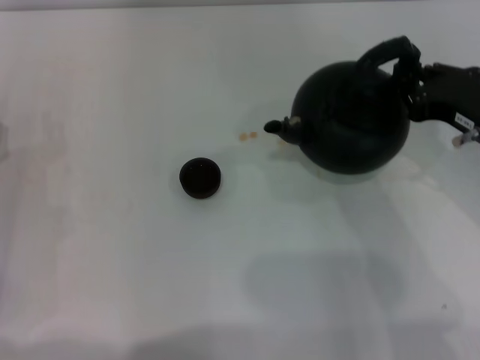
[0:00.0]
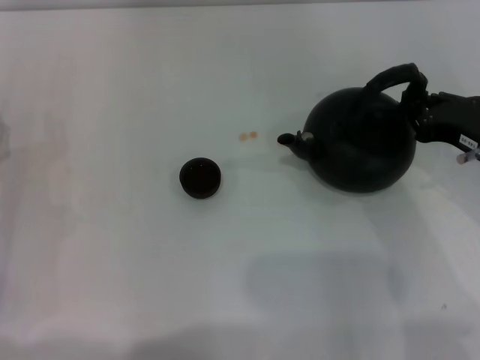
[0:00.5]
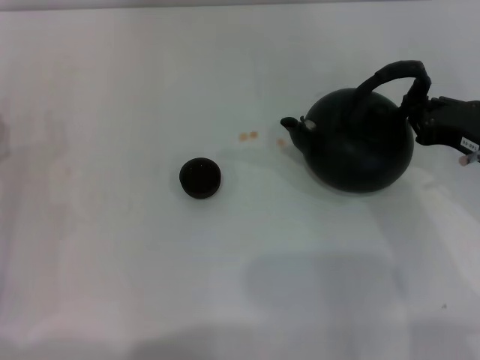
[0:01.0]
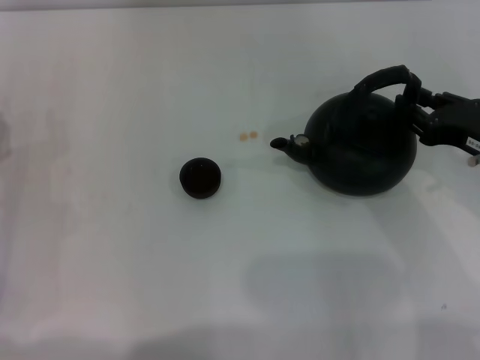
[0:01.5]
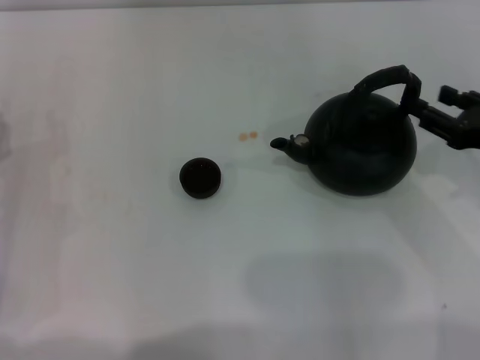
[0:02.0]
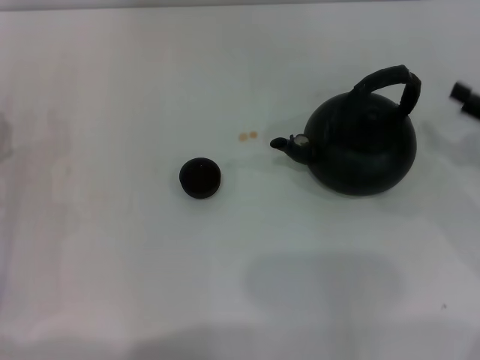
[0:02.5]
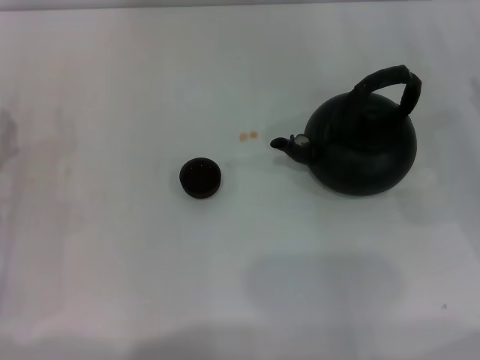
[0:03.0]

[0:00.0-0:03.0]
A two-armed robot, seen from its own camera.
Task of the whole recording: Grasp the handle of the teapot with one hand and pour tea into the teacup.
Step, 0:00.0 to 0:01.5: Put down the teapot with the right gripper.
0:00.0 to 0:01.5: The grippers stay close to where they were, moving slightly.
0:01.5 to 0:03.0: The right gripper heads to the right, covering roughly 10 cm, and opens its fingers.

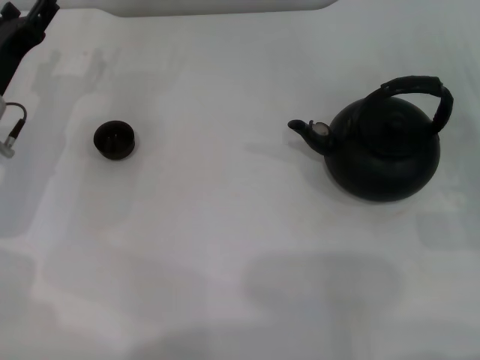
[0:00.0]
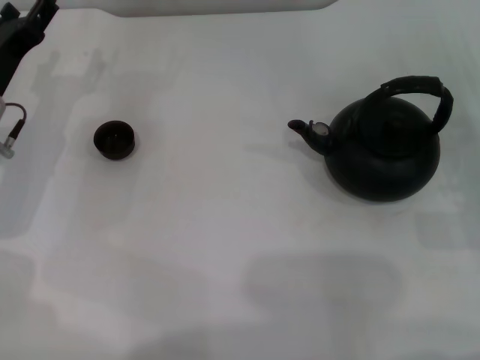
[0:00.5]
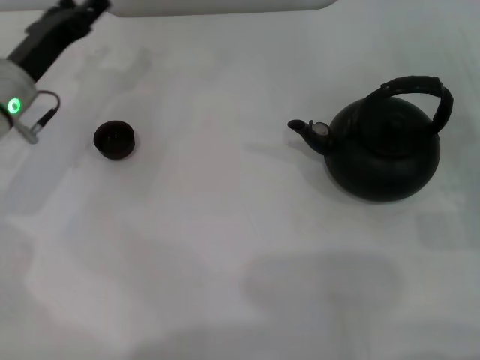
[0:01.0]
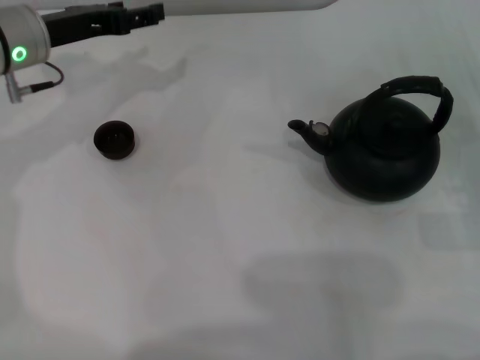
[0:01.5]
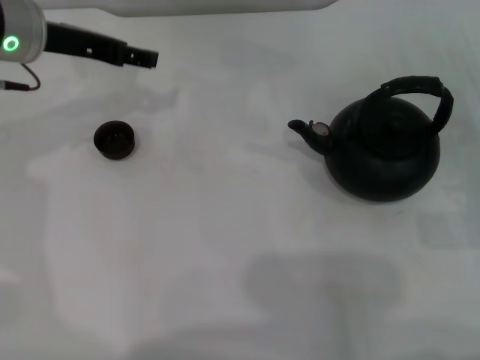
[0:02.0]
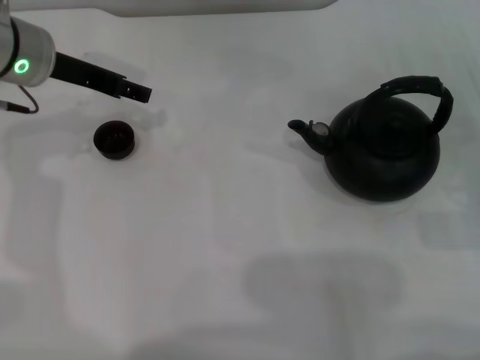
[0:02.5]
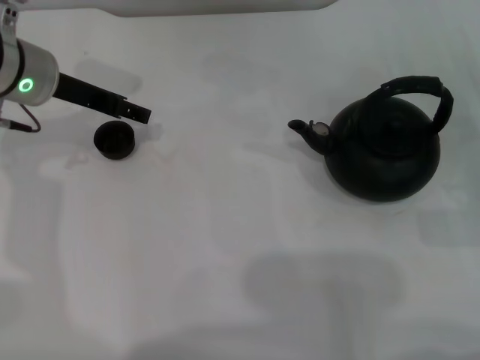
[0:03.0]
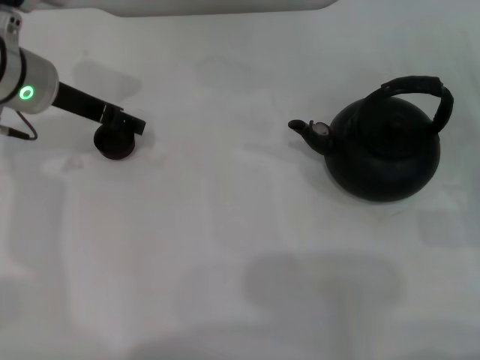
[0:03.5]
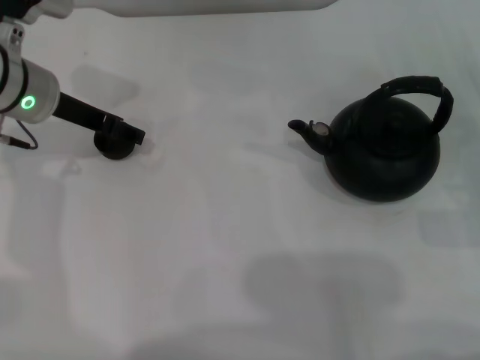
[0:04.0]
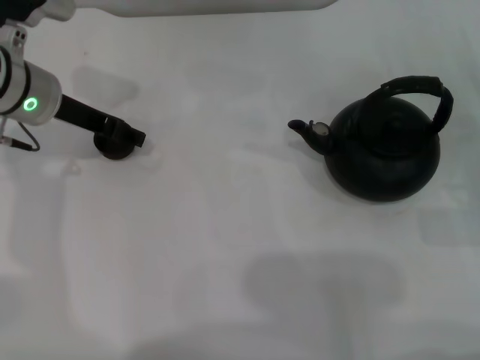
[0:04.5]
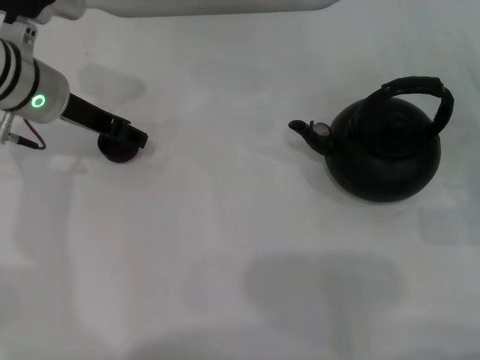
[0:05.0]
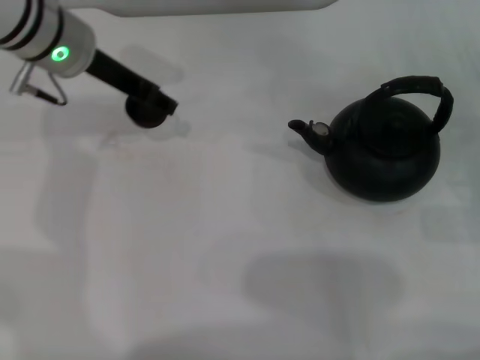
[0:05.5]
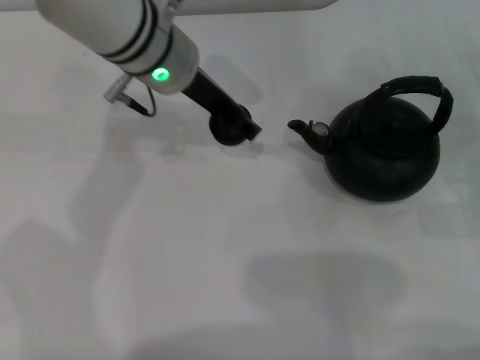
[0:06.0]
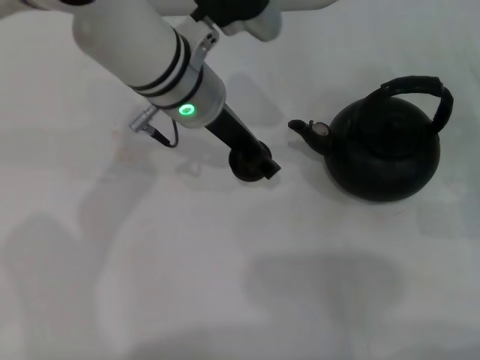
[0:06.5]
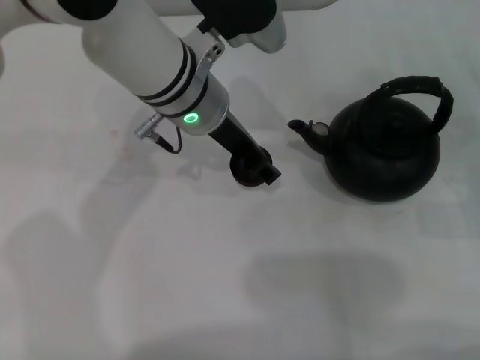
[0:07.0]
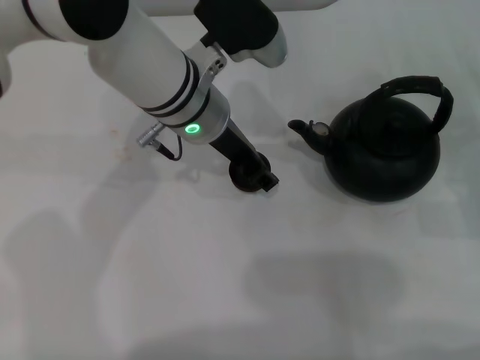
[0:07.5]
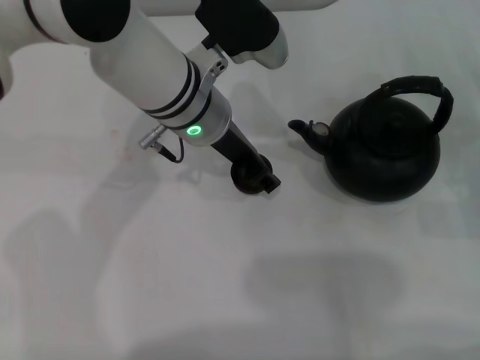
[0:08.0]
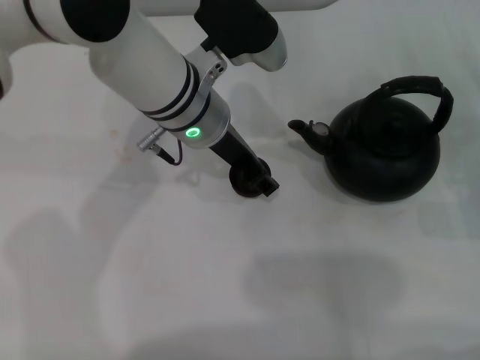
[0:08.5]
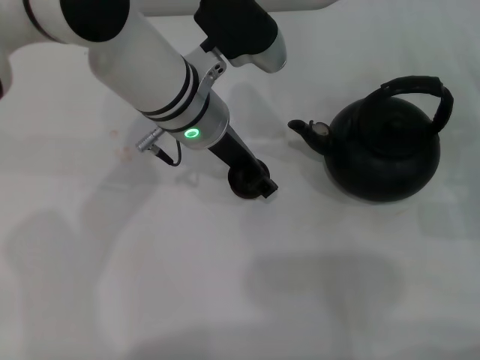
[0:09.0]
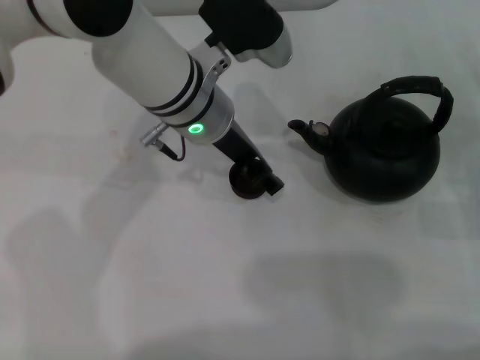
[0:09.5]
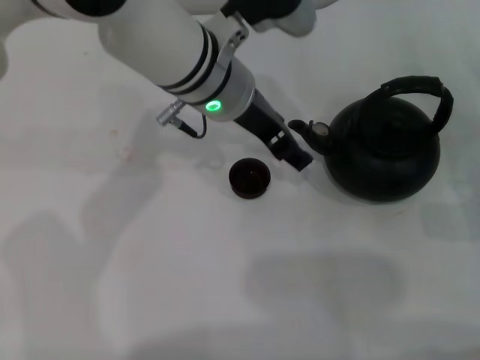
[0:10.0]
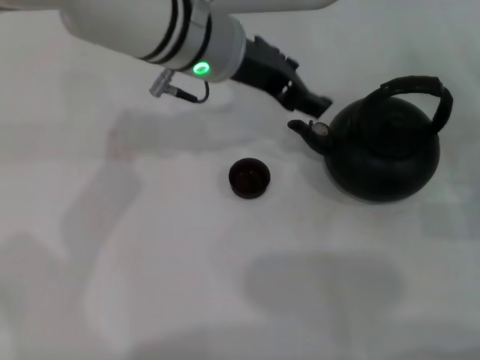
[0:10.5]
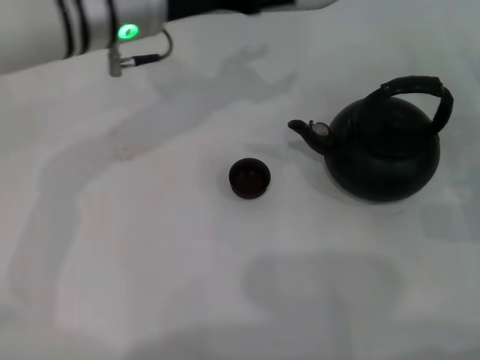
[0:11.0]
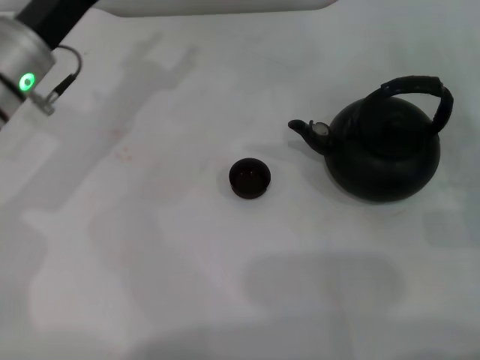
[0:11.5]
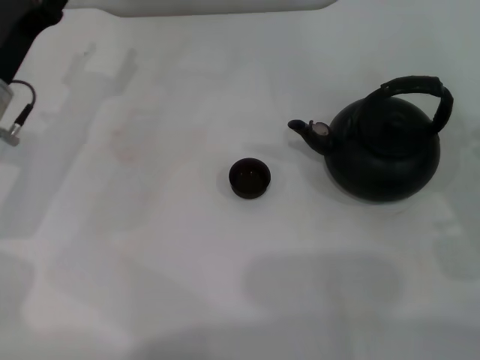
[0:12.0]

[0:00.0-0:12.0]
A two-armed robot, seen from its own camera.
Task of the whole recording: Grasp the handle of the teapot with one hand and pour tea into the teacup.
Step, 0:00.0 to 0:05.0: Pick up the teacup with the left gripper.
Step, 0:05.5 to 0:09.5: Place the teacup in the center of view with the left gripper.
0:00.0 to 0:02.0: The left gripper heads upward and forward, covering about 15 cm.
0:02.0 to 0:04.0: The grippers move only a little.
0:04.0 to 0:06.0: The left gripper moves to the right, about 15 cm, and closes.
0:06.0 to 0:08.0: The left gripper shifts by roughly 5 cm.
0:08.0 to 0:10.0: The left gripper opens up.
0:10.0 to 0:12.0: The left gripper shifts approximately 20 cm to the left.

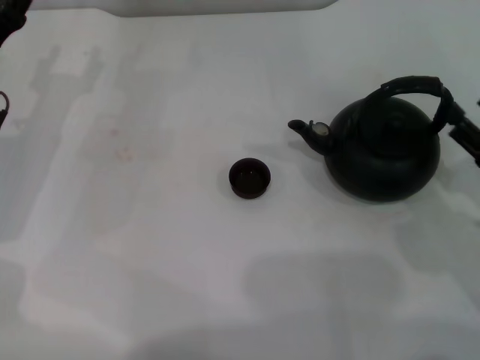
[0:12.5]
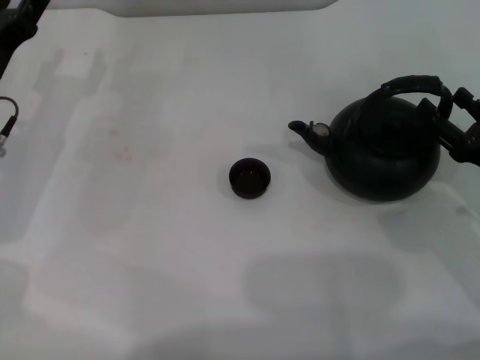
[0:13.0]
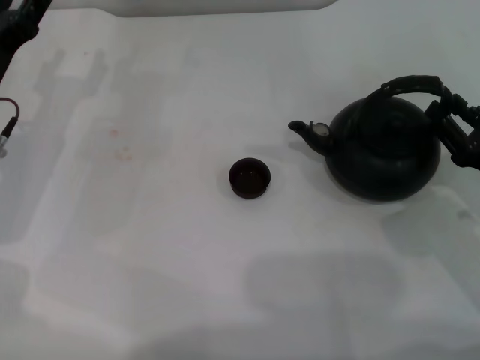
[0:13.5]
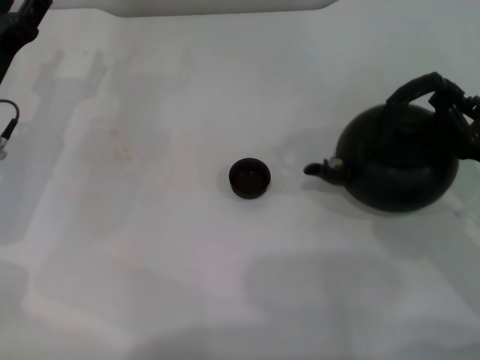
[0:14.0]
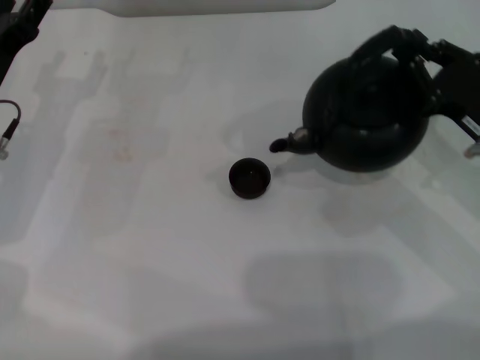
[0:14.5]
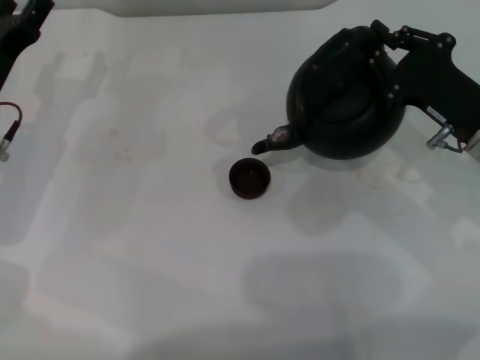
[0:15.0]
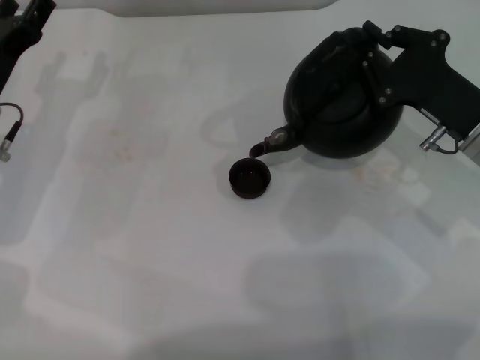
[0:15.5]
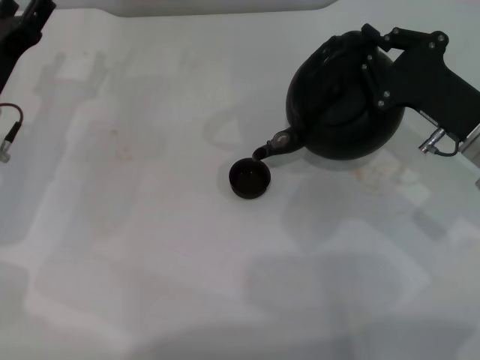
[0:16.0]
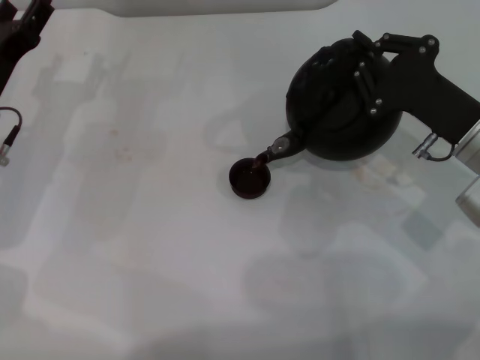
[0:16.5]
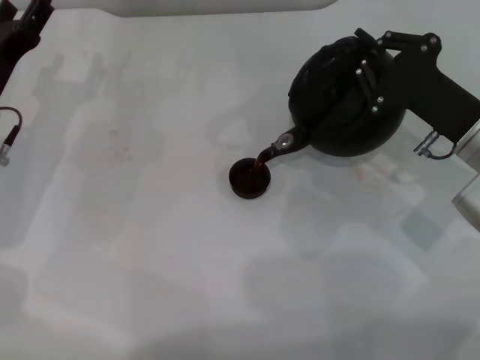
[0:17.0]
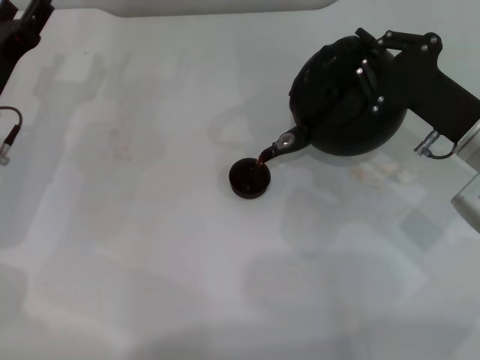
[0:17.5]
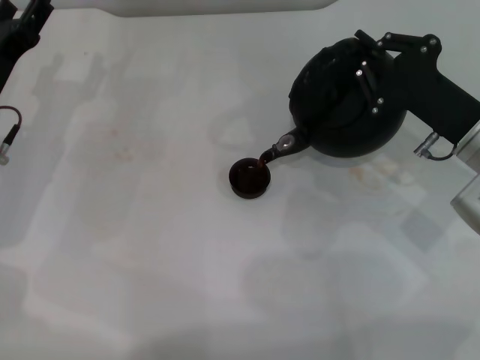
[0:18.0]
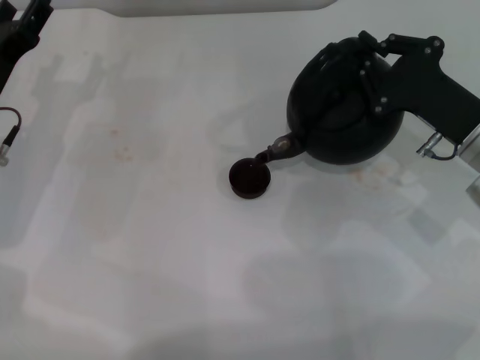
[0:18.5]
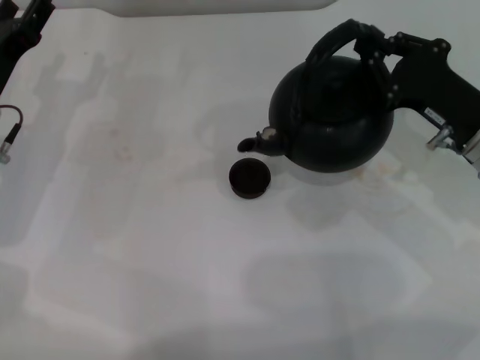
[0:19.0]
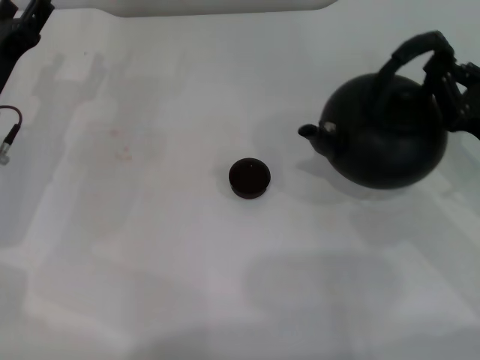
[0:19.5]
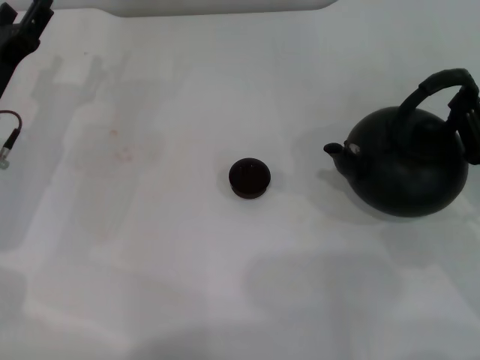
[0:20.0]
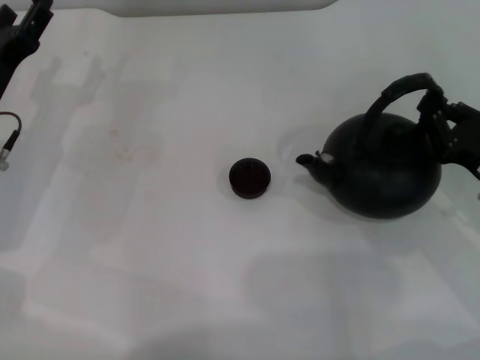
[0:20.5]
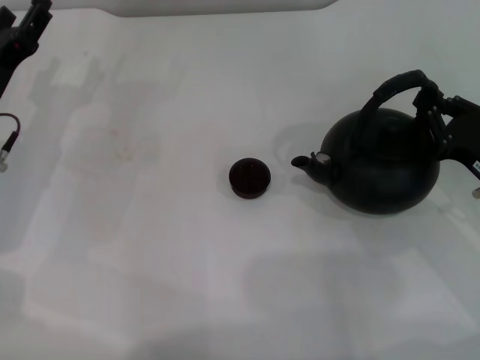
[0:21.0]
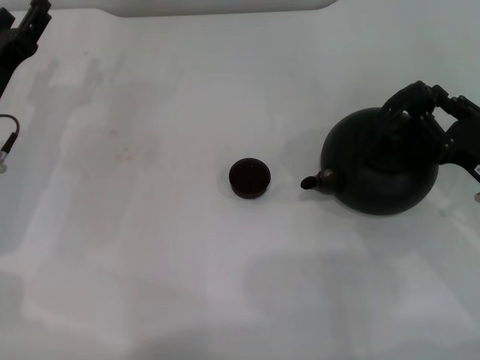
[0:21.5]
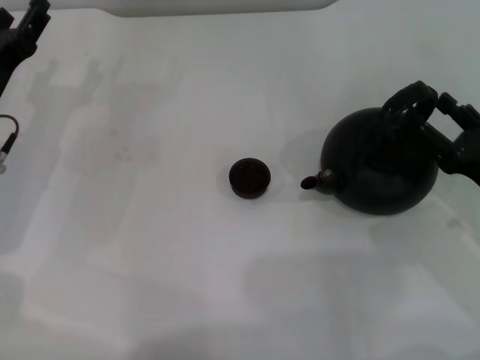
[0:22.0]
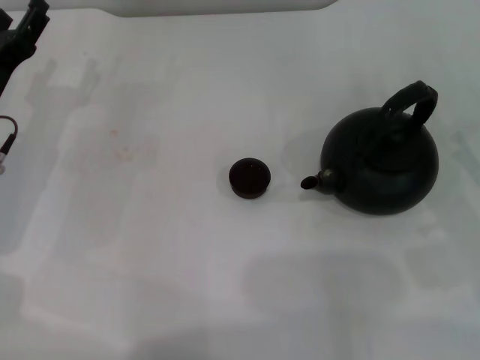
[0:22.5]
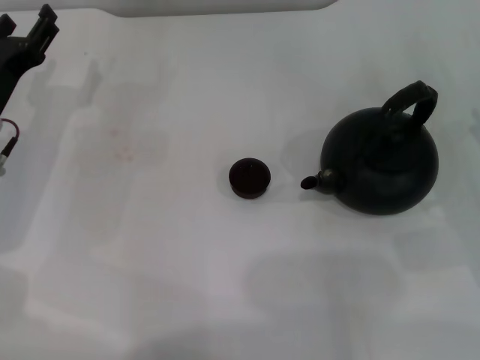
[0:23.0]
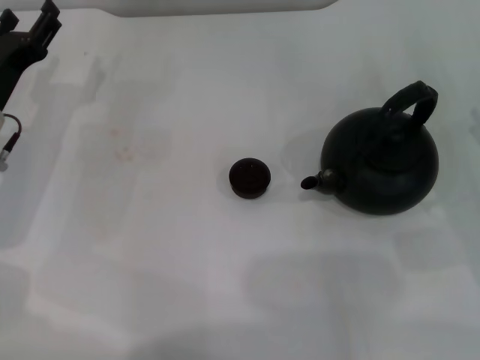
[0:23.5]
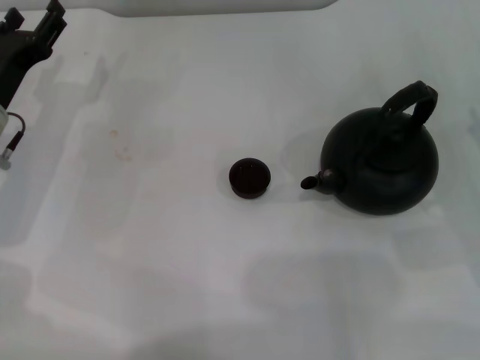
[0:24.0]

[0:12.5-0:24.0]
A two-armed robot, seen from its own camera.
Task of the whole recording: Grasp the handle of the teapot with one hand and pour tea into the teacup.
Step, 0:14.5 to 0:19.0: Pour tea into the teacup with the right gripper.
Step, 0:19.5 to 0:22.0: Put down the teapot with the right gripper.
0:12.5 to 0:14.5: The right gripper shifts approximately 5 cm forward, and closes its fingers.
0:16.5 to 0:18.5: There are only small adjustments of the grippers.
0:18.5 to 0:20.0: The right gripper goes roughly 10 cm backward and to the right.
0:20.0 to 0:22.0: The right gripper opens up.
